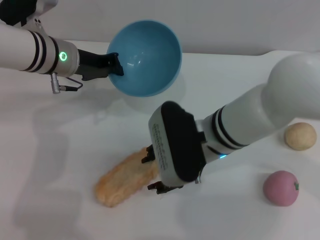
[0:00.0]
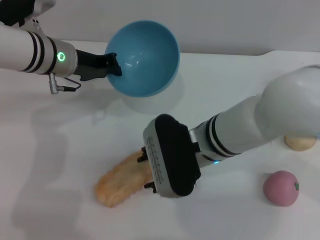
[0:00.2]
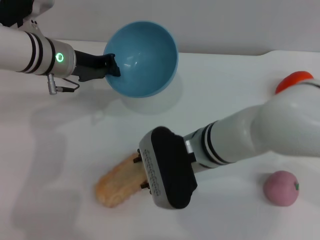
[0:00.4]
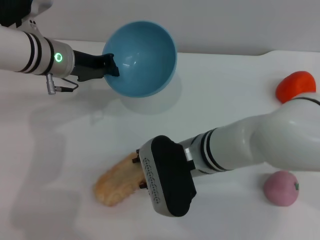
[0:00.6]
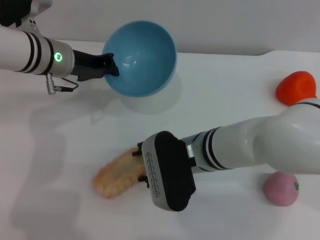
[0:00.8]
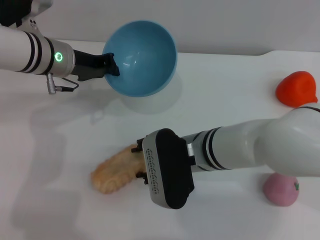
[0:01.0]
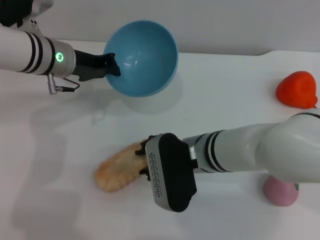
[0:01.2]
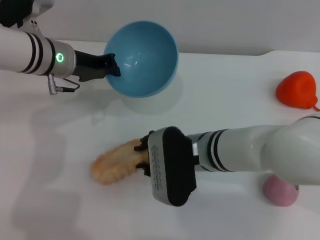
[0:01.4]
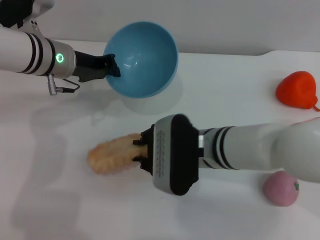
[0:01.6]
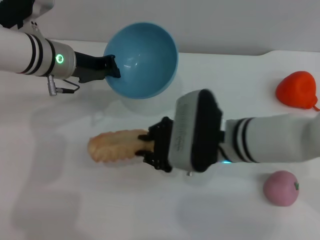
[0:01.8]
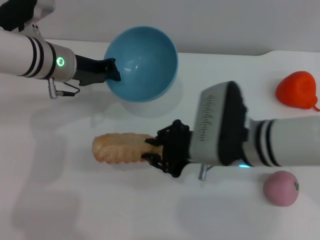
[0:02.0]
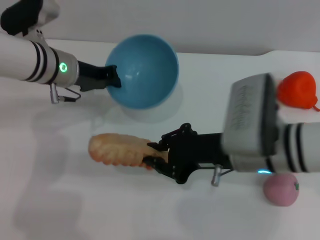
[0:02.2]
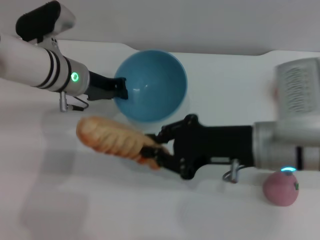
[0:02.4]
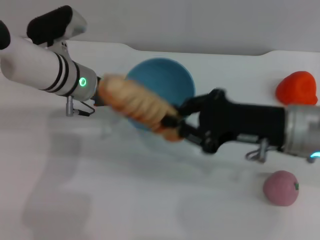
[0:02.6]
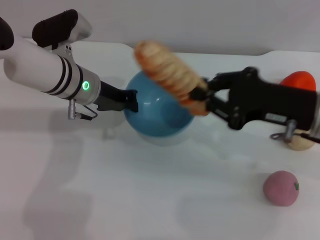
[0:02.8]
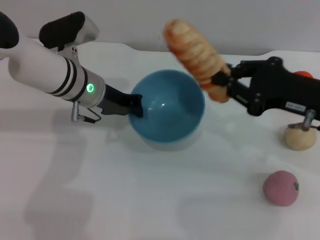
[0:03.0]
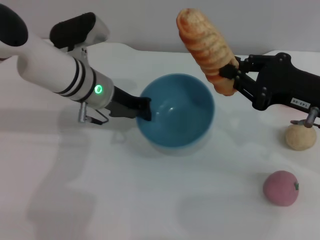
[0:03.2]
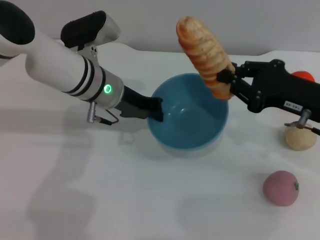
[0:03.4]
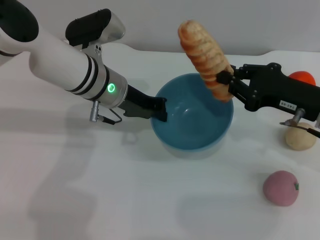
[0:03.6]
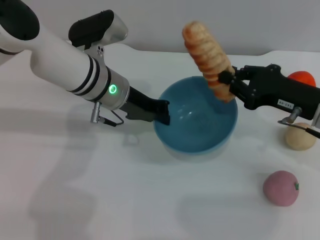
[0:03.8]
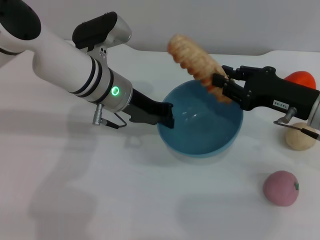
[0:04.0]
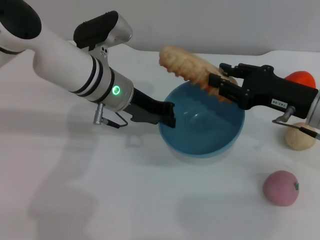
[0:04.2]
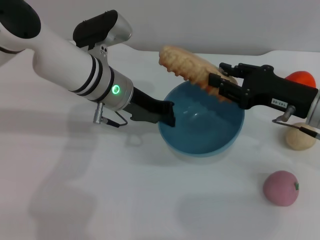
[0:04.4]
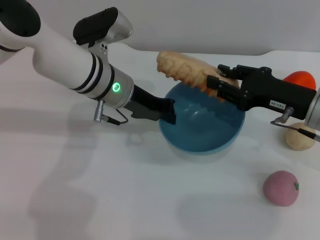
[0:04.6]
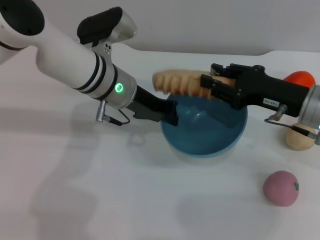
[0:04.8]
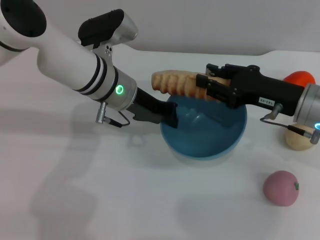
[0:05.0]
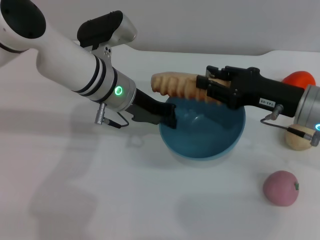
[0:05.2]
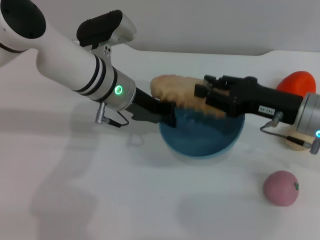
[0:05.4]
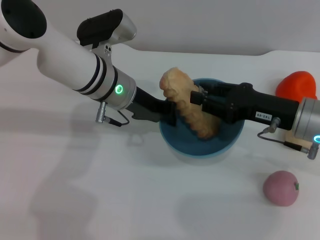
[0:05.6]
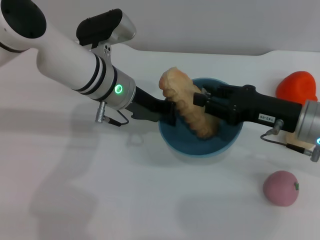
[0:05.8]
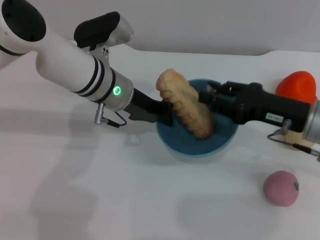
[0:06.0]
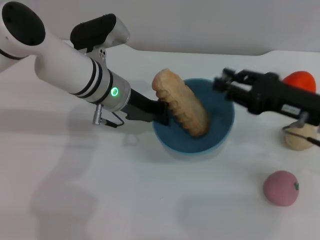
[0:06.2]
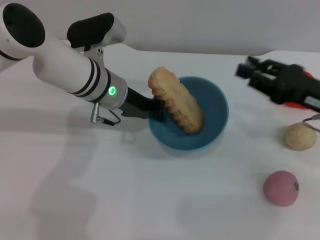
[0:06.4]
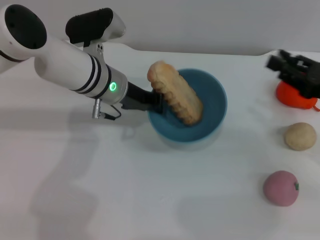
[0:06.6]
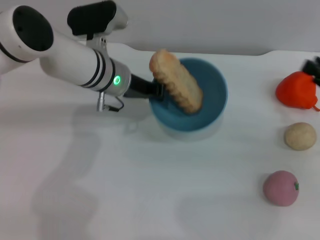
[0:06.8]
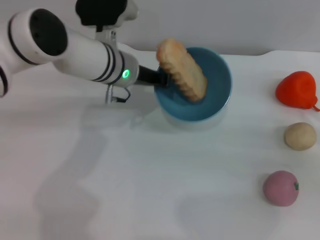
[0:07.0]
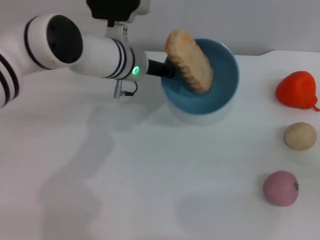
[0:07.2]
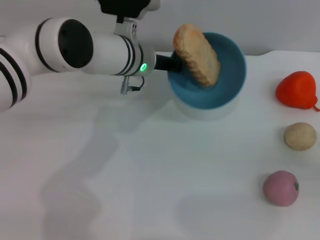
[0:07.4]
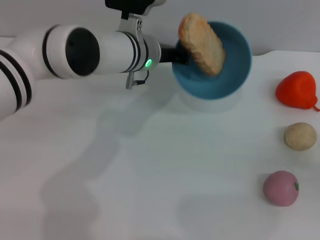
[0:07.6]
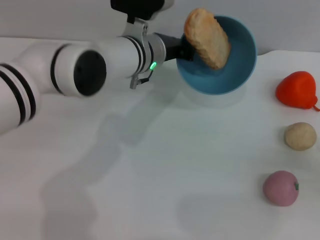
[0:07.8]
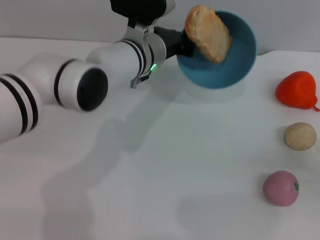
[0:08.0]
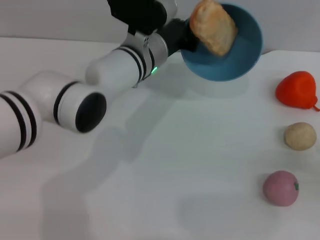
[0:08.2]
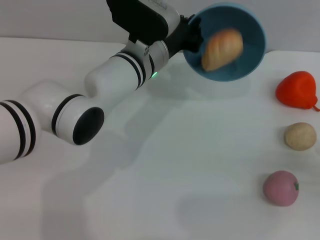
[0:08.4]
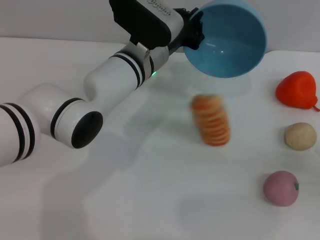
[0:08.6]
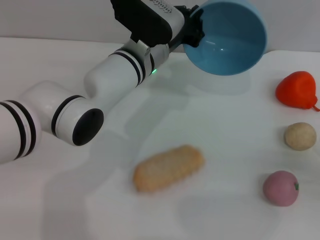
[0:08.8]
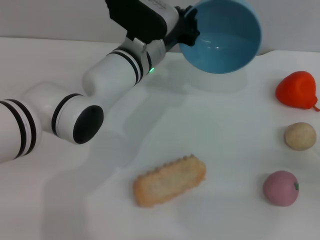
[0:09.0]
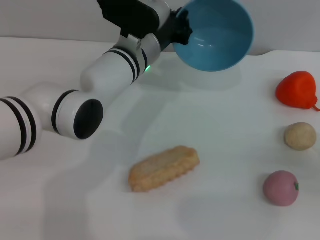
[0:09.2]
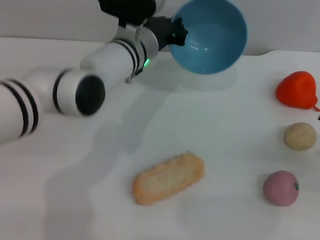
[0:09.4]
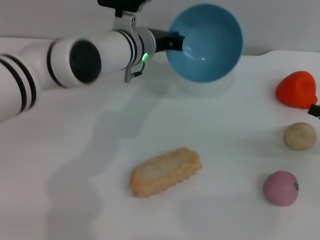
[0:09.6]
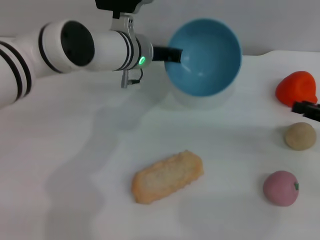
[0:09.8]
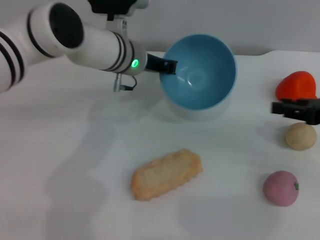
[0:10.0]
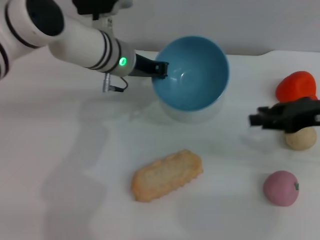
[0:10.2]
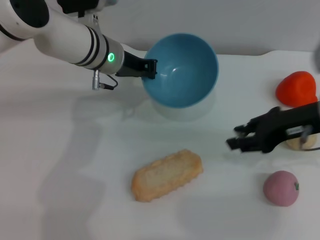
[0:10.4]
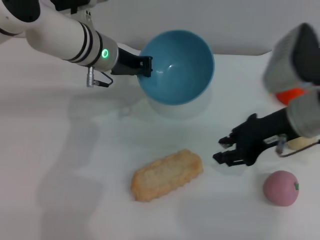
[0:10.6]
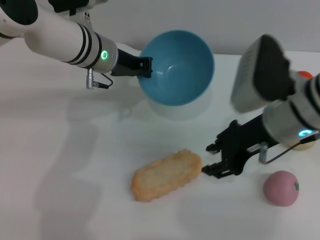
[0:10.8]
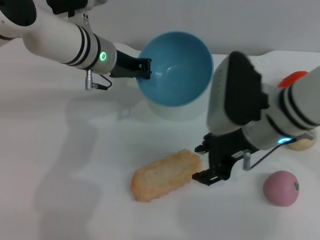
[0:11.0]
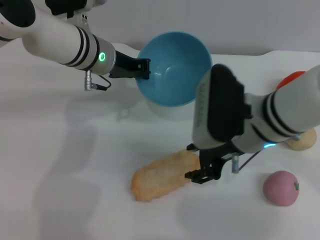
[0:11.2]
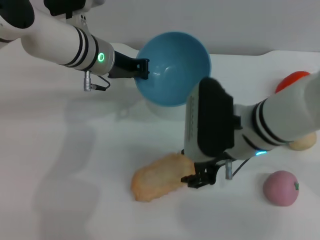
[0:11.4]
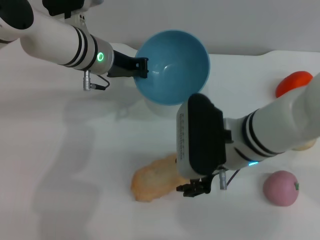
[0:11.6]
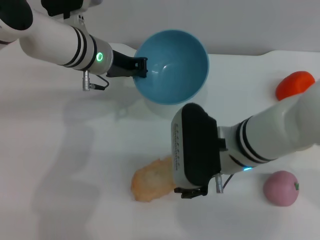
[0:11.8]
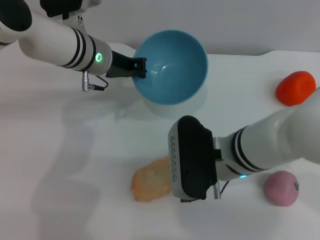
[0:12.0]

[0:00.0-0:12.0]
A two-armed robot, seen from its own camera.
Task of the whole recording: put the bread into the blue bowl and pour it out repeatedly.
Step, 0:00.0 to 0:02.0: Pick up the bread with the right gripper.
Step, 0:02.2 to 0:06.0: Place the bread into the bowl.
Step, 0:06.2 to 0:10.2: Pour the bread out of the bowl.
0:01.6 to 0:03.0: The right gripper goes about 20 cm to the right and upward, and closes its fingers. The left gripper shifts by about 5 cm.
0:03.0 to 0:04.4: The right gripper moves roughly 5 cm, and opens.
0:04.4 to 0:06.0: The grippers stay close to where they were, moving slightly.
0:06.0 to 0:07.6: The left gripper ends up some 5 cm from where it was, while the right gripper moves to the right, about 15 cm.
0:09.0 to 0:10.4: The right gripper shifts approximately 20 cm to the left, upward and forward. Meanwhile the left gripper is displaced to the left by roughly 5 cm.
0:10.4 to 0:12.0: The right gripper heads to the left and downward, covering roughly 15 cm.

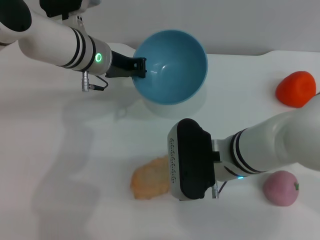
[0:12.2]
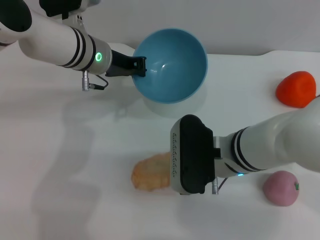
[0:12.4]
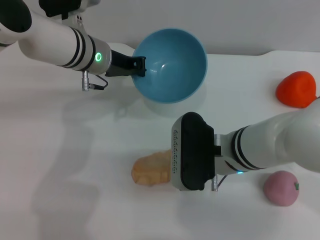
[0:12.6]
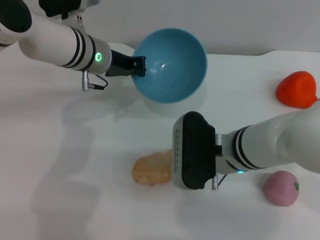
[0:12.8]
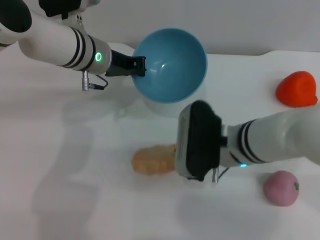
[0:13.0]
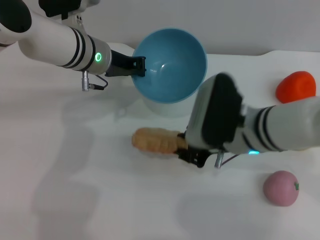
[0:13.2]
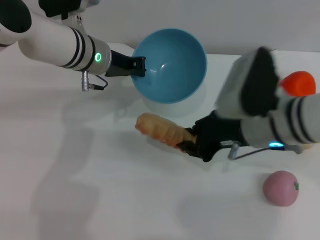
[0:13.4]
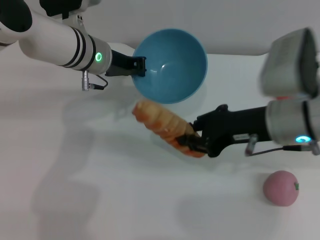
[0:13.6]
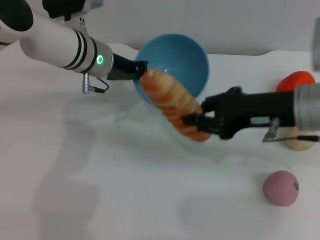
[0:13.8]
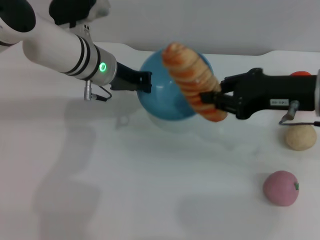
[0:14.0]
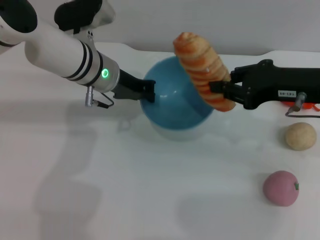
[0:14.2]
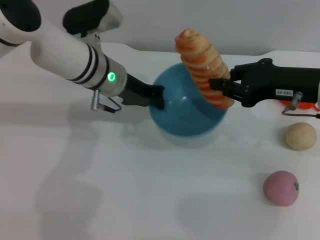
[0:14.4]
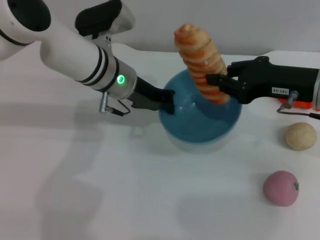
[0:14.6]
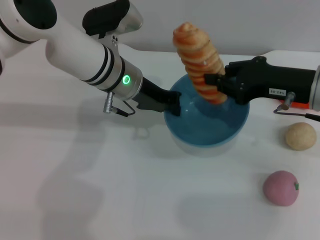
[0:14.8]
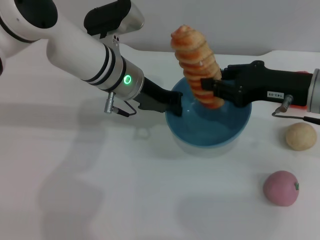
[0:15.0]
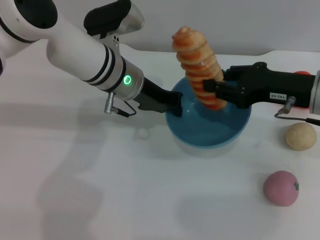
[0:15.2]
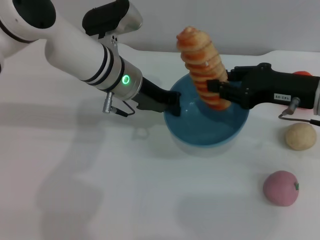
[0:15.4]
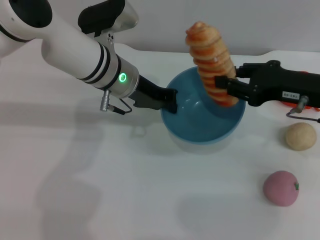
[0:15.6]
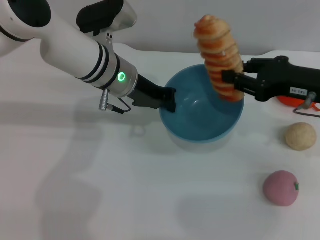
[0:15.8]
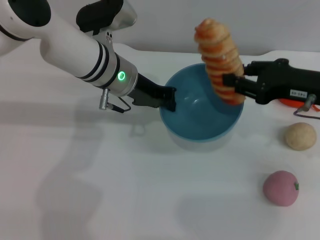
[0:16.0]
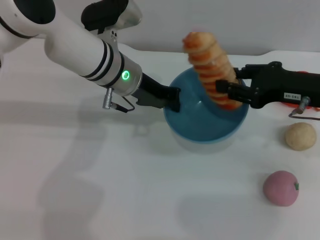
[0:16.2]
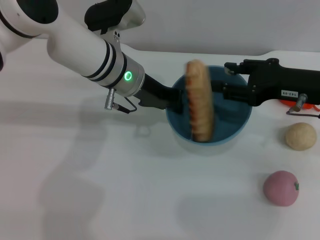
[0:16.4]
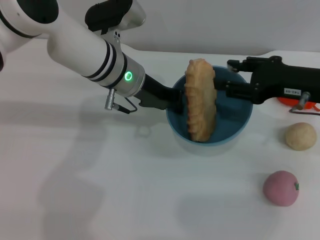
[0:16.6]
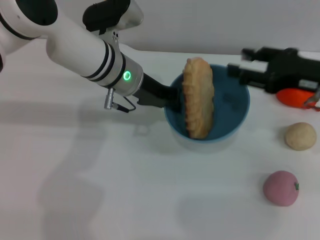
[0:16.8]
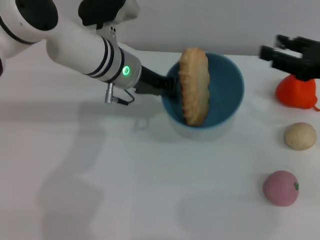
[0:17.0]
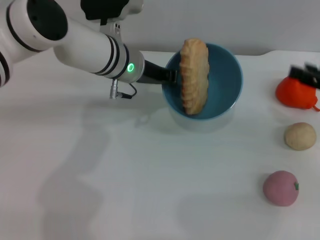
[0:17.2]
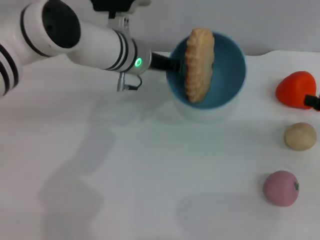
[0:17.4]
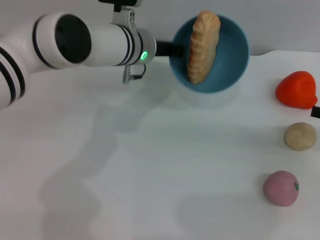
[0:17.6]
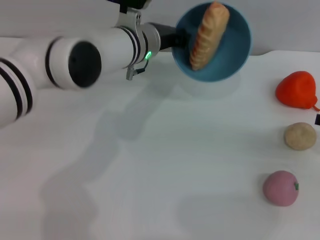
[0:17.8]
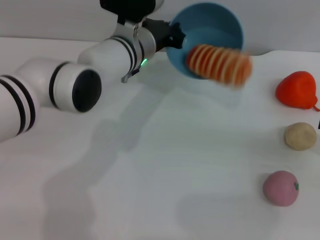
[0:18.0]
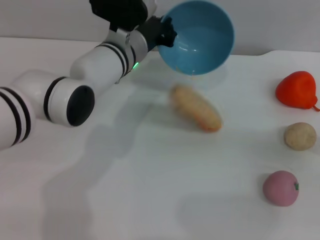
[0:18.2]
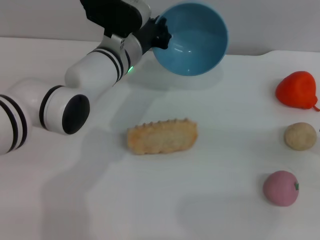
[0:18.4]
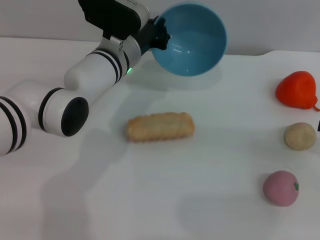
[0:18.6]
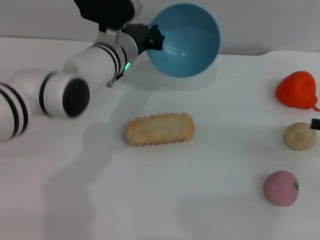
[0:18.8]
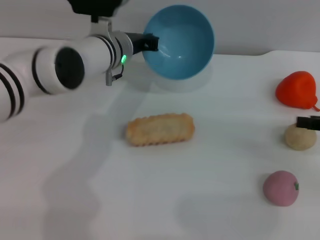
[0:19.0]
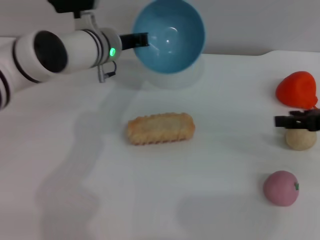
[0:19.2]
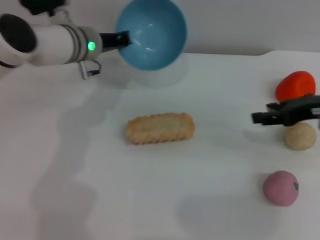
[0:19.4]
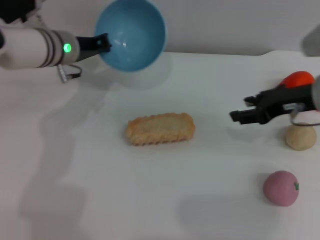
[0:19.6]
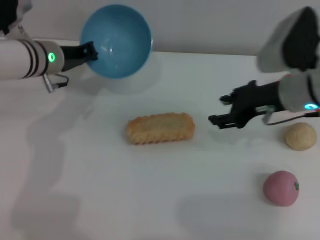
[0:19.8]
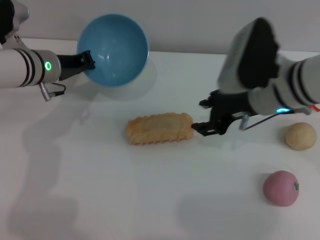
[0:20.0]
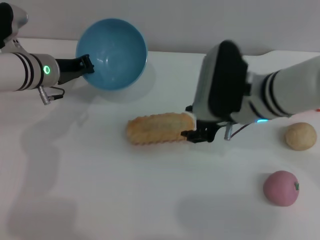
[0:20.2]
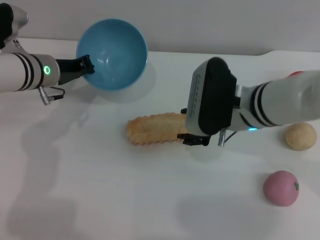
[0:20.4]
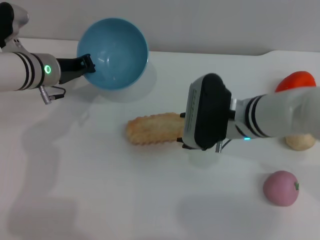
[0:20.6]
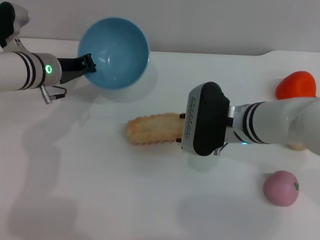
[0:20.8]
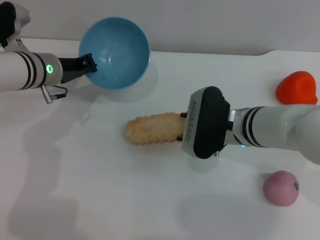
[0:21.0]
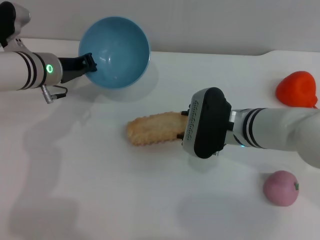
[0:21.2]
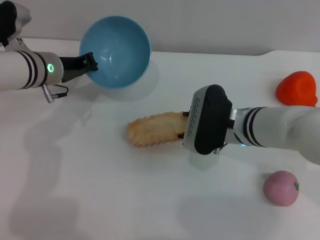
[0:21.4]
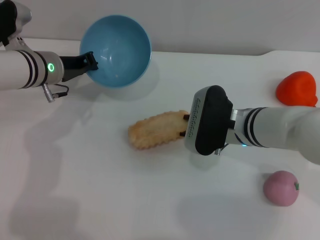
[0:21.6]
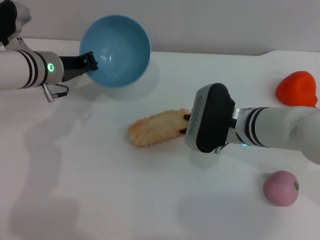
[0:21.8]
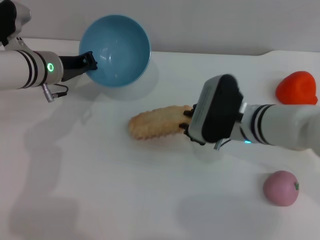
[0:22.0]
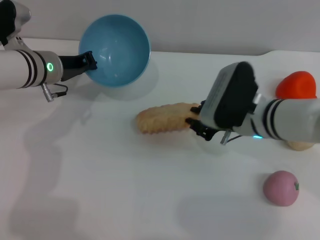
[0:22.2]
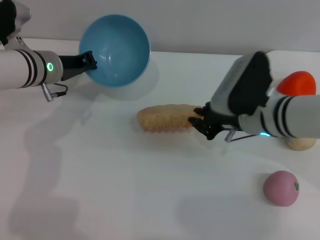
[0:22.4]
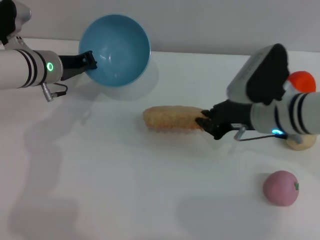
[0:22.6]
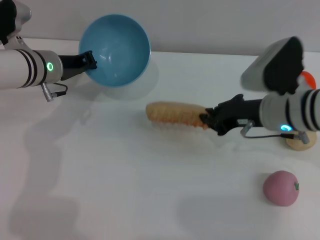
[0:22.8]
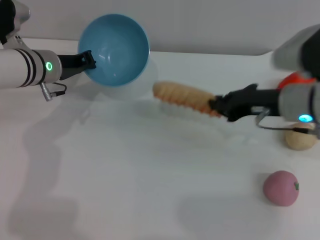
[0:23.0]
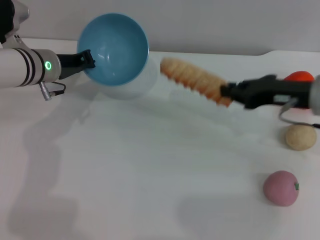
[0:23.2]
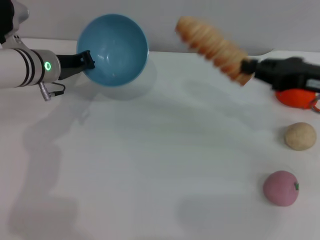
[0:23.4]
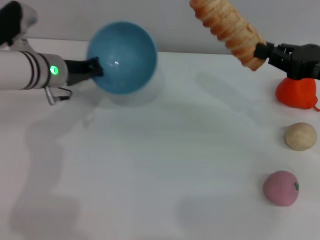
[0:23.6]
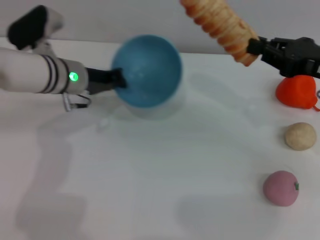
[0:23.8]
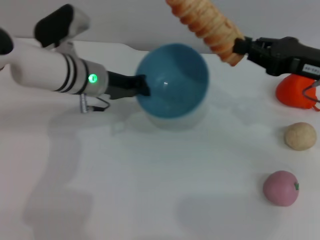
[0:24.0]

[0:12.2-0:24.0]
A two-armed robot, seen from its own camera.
Task of the whole recording: put the bread into the blue bowl and pour it out repeatedly.
Step, 0:13.8 to 0:16.4: Place the bread into the bowl.
Step, 0:16.8 to 0:18.6: Pour the bread out of the bowl.
Step, 0:18.8 to 0:23.2: Pick up the bread with the right gripper.
0:12.2 to 0:13.6: The right gripper shifts approximately 10 cm to the right and upward, and closes up.
0:13.6 to 0:15.2: The right gripper travels to the right by some 5 cm. The left gripper moves approximately 5 cm.
0:15.2 to 0:16.6: The right gripper opens up.
0:16.6 to 0:18.2: The right gripper travels to the right by approximately 15 cm.
0:18.2 to 0:19.6: The left gripper goes some 10 cm to the left; the right gripper heads to the left and forward, covering roughly 20 cm.
0:19.6 to 0:21.0: The right gripper goes approximately 15 cm to the left and downward.
0:21.0 to 0:22.6: The right gripper travels to the right by about 5 cm, and closes its fingers.
0:22.6 to 0:24.0: The right gripper is displaced to the right and upward by approximately 10 cm, while the left gripper shifts roughly 5 cm to the right.
